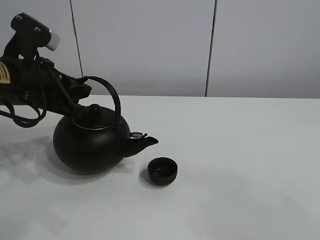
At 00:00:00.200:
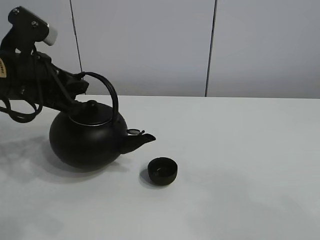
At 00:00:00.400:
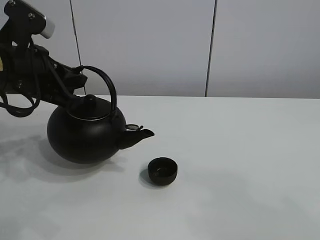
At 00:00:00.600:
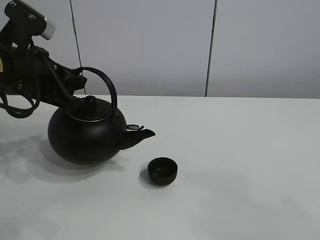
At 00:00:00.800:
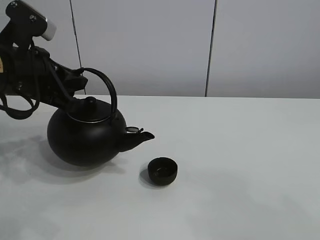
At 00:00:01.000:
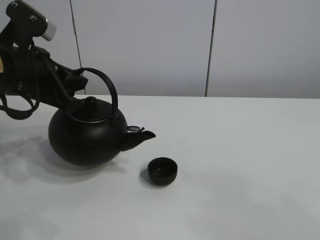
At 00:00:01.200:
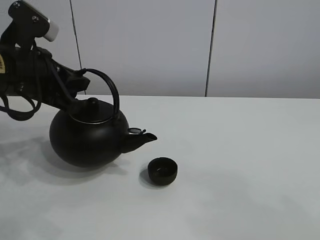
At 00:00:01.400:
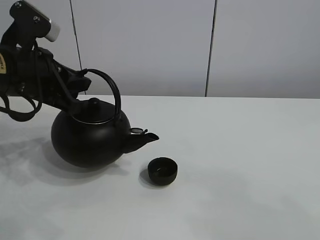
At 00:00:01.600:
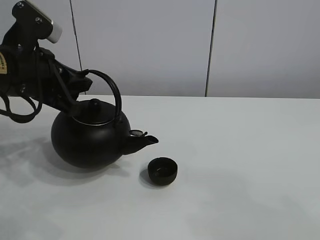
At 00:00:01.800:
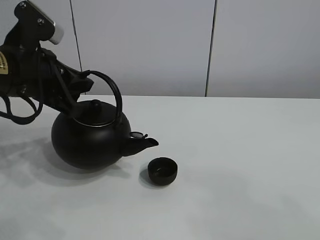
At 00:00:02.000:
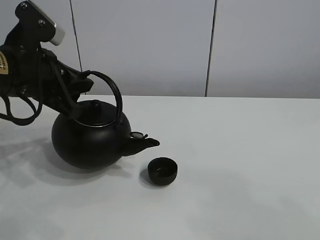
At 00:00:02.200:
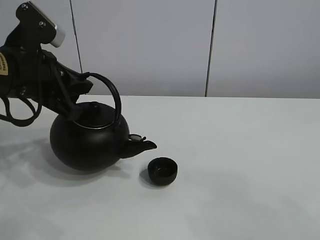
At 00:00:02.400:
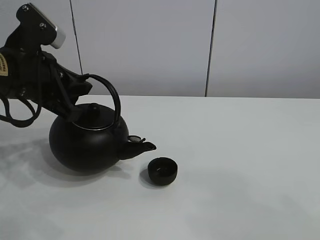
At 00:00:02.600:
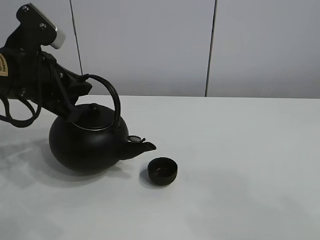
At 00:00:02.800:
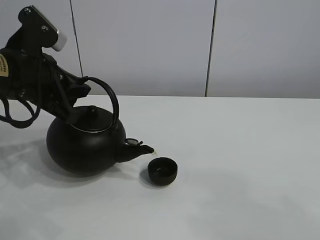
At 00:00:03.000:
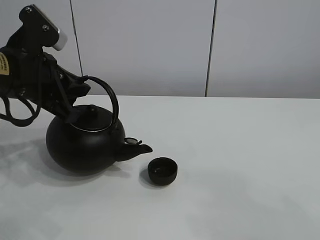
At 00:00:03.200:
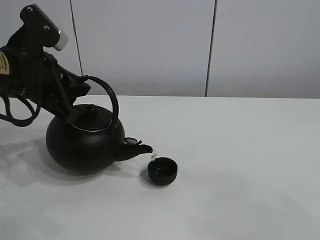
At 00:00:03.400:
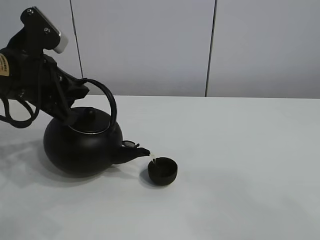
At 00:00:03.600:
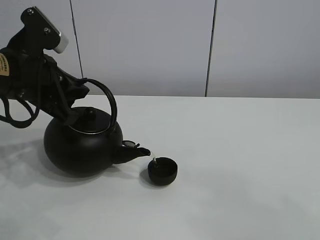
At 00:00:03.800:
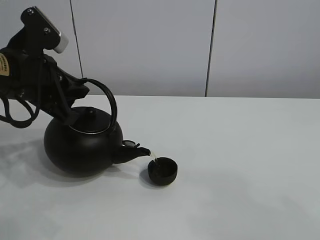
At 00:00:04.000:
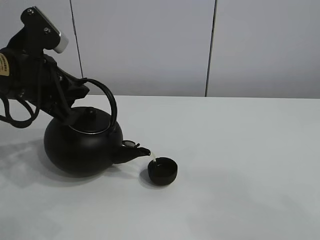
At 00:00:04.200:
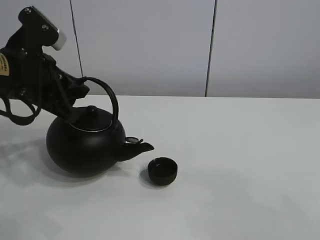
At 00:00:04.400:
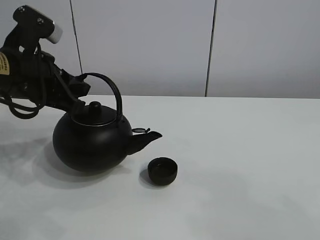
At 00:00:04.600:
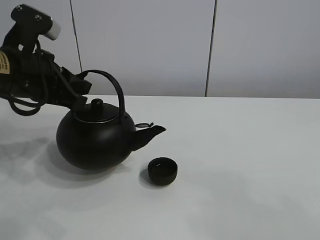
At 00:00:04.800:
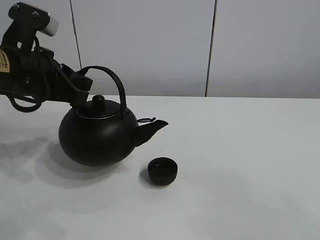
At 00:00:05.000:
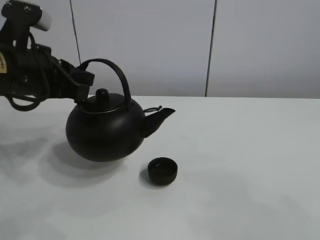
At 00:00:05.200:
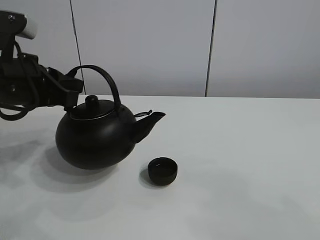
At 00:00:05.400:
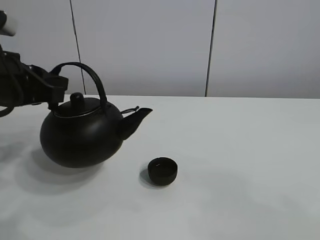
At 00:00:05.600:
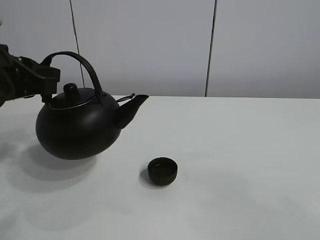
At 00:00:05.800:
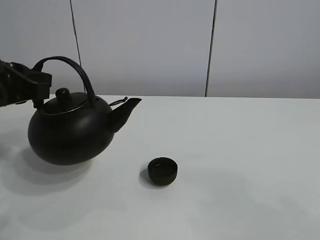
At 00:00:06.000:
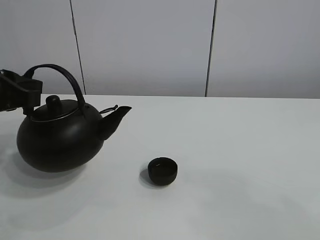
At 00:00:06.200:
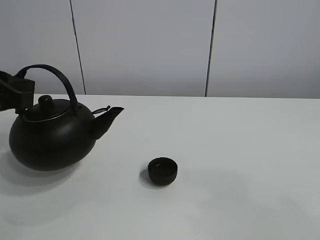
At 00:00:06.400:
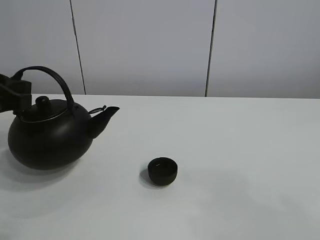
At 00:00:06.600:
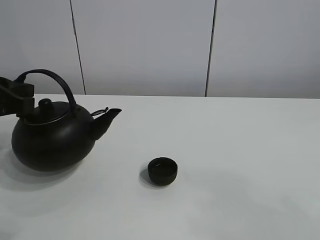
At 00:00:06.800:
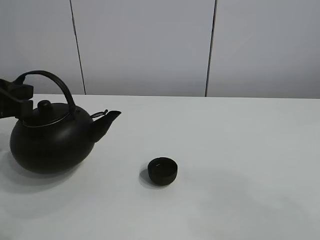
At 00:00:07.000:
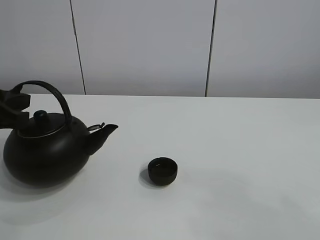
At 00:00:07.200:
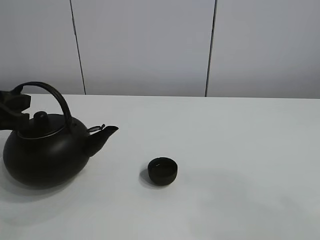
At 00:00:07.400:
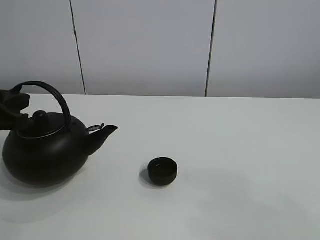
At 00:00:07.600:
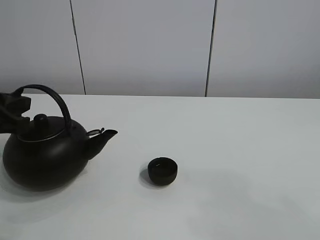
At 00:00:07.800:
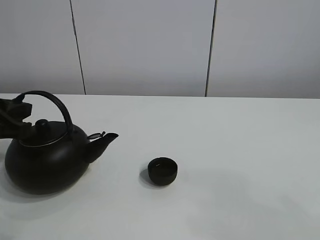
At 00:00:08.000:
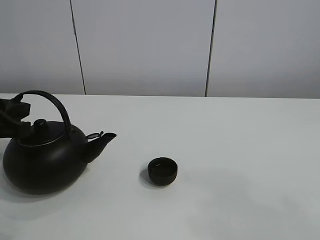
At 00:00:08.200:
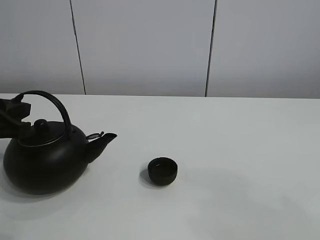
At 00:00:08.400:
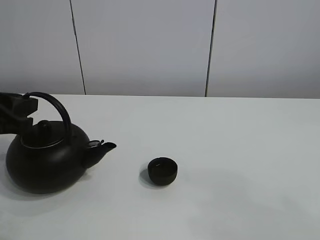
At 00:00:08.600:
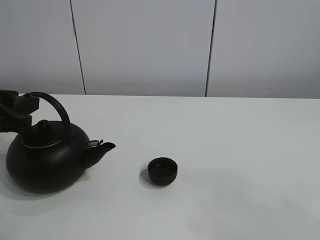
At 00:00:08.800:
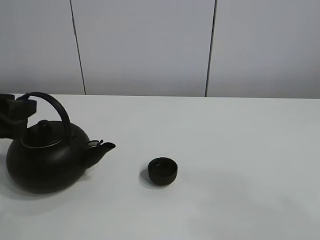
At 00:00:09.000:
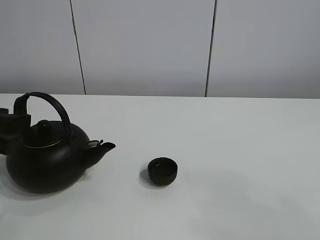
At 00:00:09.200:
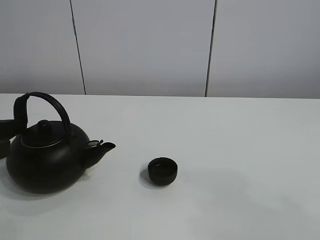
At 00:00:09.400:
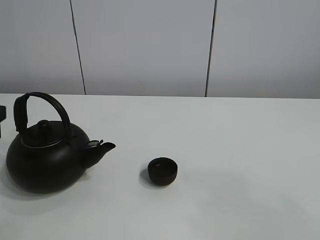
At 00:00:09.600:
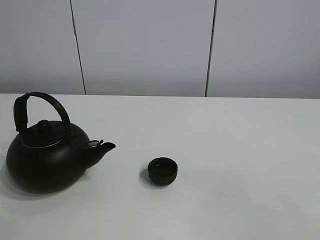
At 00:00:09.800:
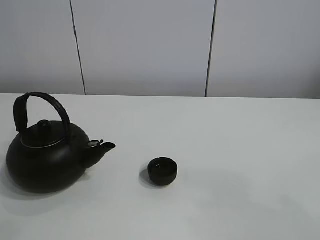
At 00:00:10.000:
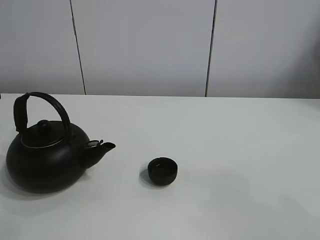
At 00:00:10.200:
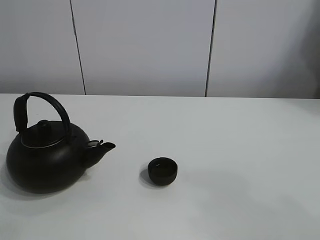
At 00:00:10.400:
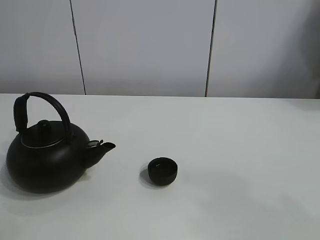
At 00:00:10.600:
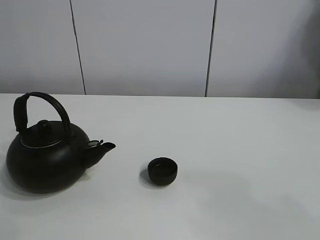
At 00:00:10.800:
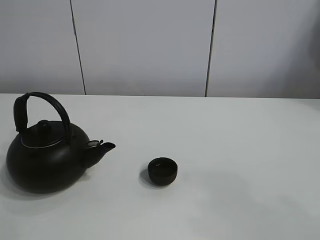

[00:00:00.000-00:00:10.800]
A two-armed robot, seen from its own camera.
Task of the whole recording: pour tea into the teacup.
Step, 00:00:00.000 to 00:00:04.200: Pour tea into the teacup with the left gripper.
00:00:00.000 to 00:00:04.600: The grippers stay close to where they were, moving slightly.
00:00:04.600 to 00:00:06.200: The left gripper goes roughly 5 cm to the left.
00:00:06.200 to 00:00:07.800: The grippers move only a little.
00:00:07.800 to 00:00:09.200: The left gripper opens up.
00:00:09.200 to 00:00:10.800: The left gripper goes about 20 cm upward and to the left.

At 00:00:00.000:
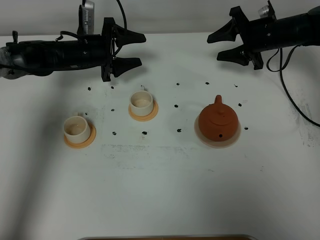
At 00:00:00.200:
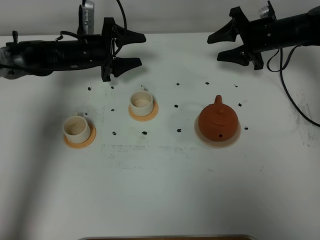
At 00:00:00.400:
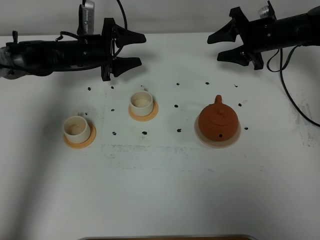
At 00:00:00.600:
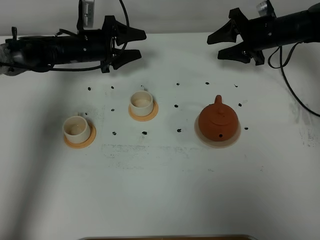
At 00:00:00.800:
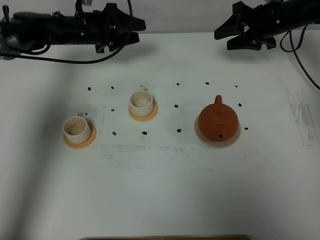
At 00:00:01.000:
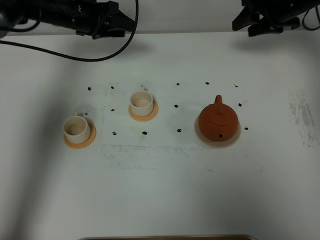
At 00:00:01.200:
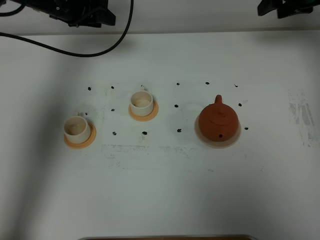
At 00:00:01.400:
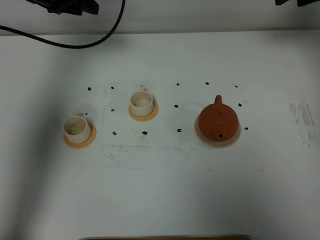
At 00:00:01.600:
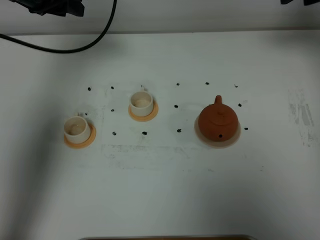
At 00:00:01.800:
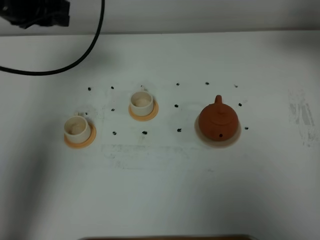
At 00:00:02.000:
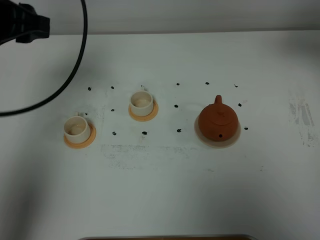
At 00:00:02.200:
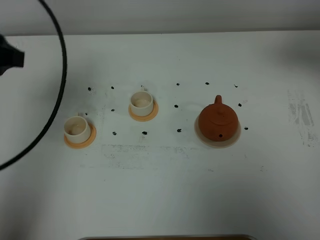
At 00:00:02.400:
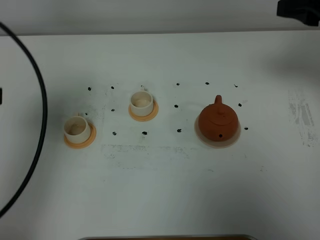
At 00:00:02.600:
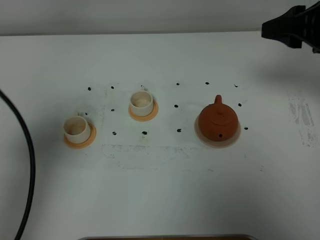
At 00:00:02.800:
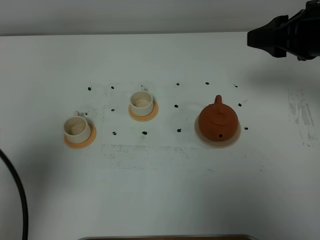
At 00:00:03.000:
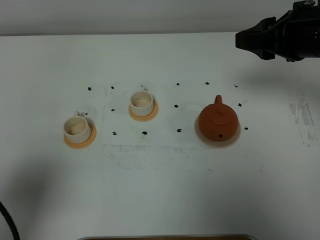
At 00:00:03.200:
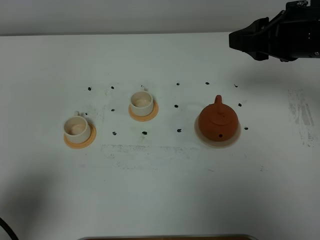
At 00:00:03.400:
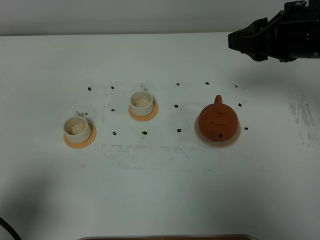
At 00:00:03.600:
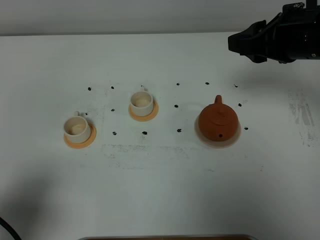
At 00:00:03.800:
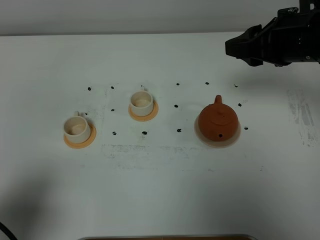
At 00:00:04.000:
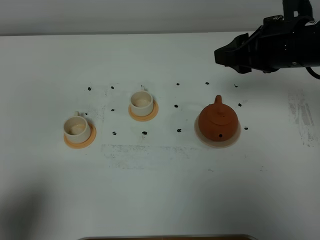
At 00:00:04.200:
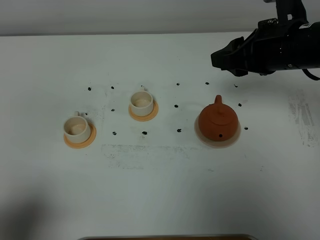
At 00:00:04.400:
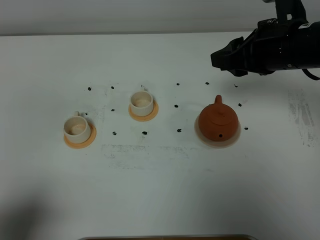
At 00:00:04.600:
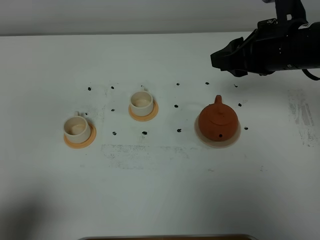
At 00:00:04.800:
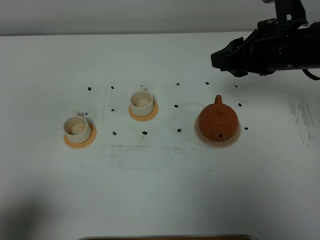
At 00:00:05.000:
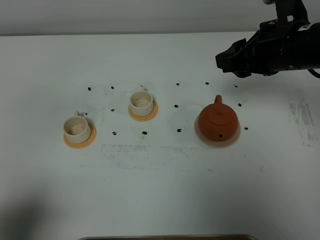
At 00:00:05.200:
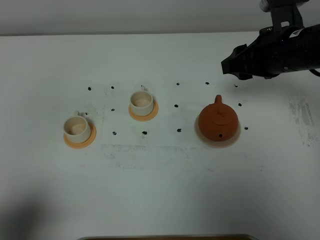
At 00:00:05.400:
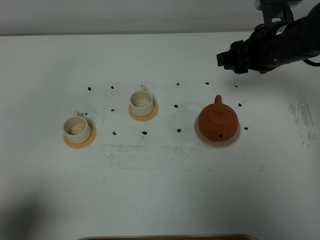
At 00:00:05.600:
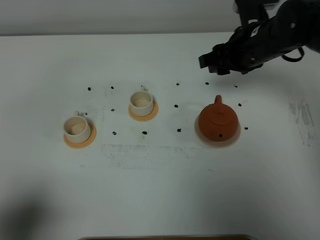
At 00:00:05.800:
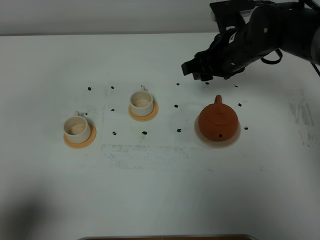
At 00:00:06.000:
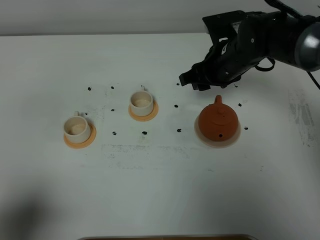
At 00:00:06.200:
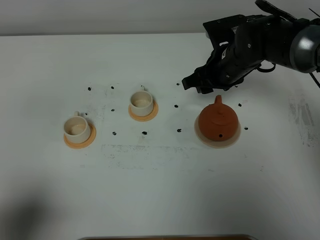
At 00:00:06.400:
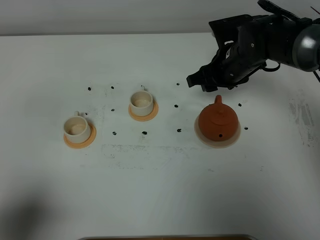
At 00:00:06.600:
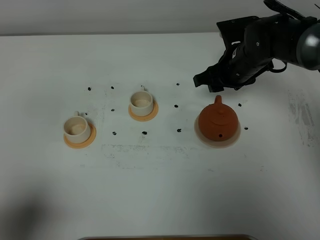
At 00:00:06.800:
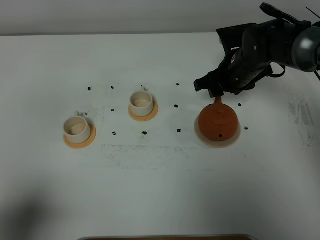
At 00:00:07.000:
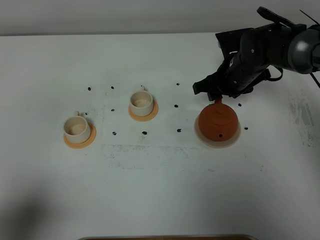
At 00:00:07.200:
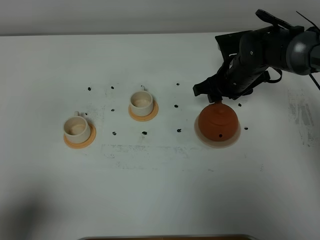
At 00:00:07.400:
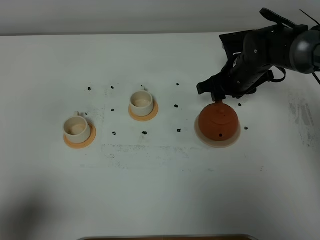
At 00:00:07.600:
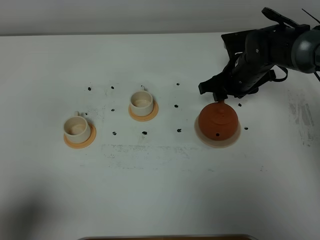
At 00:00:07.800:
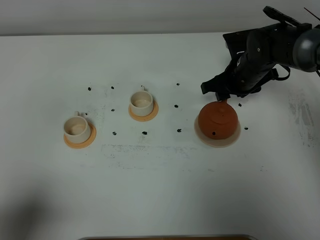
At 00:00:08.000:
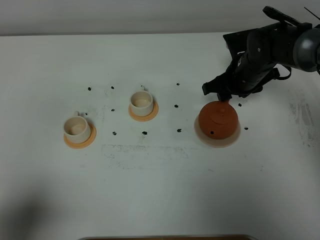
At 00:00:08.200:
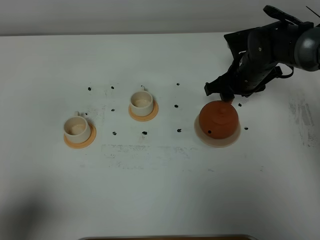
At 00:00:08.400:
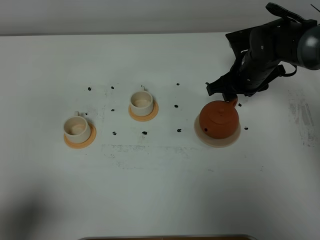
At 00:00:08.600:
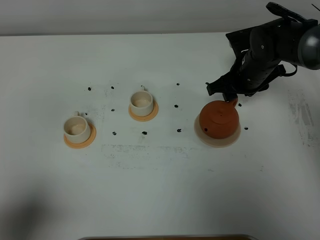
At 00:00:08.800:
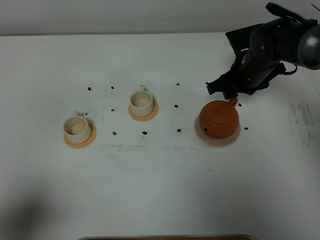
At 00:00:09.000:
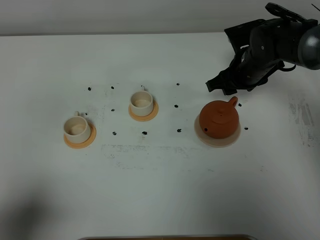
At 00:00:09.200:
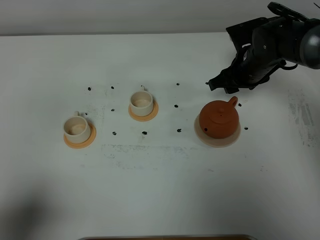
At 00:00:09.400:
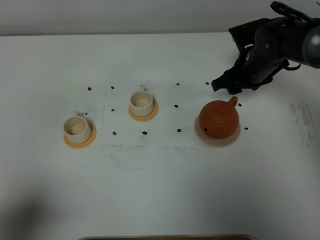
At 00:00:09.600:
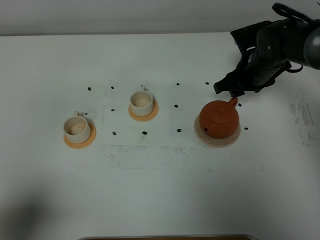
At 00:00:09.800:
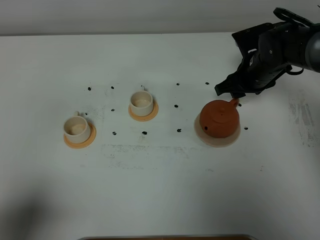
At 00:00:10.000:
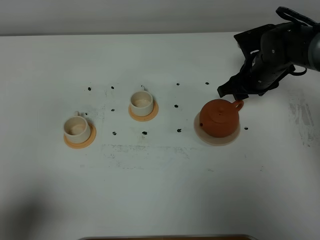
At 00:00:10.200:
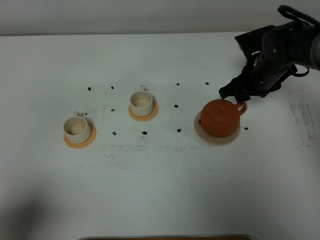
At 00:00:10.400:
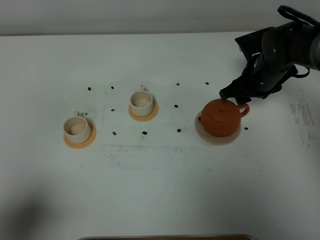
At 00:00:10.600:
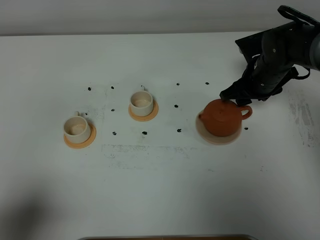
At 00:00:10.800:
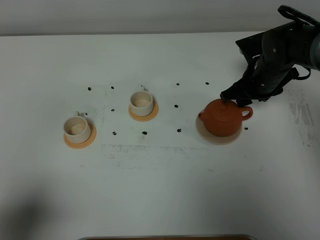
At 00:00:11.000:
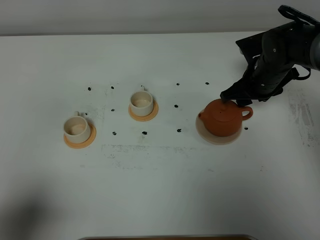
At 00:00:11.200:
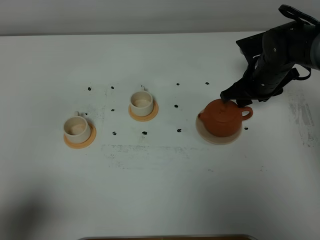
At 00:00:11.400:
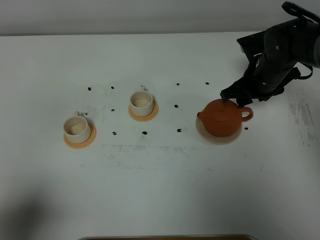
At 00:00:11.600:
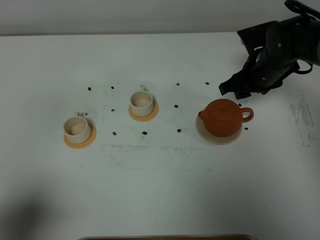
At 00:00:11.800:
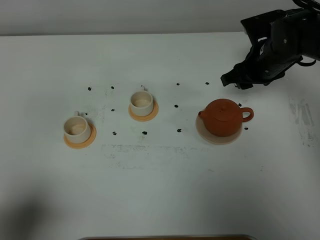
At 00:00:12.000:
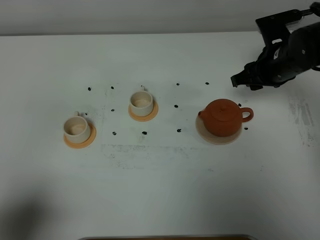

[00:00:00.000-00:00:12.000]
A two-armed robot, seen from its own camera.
Task of the whole recording: grasp the brown teapot and pour the tea into the two white teacups one by one, put the brown teapot back in its original place.
00:00:00.000 to 00:00:01.600: The two grippers go roughly 20 cm upward.
00:00:01.600 to 00:00:03.000: The left gripper shifts about 40 cm backward, while the right gripper goes approximately 15 cm backward and to the left.
00:00:03.000 to 00:00:04.400: The left gripper is displaced backward by some 5 cm.
00:00:04.400 to 00:00:06.000: The right gripper goes about 15 cm downward, forward and to the left.
00:00:06.000 to 00:00:07.600: The right gripper ends up approximately 5 cm from where it was.
00:00:07.600 to 00:00:10.400: The grippers move only a little.
00:00:10.400 to 00:00:12.000: There are only small adjustments of the grippers.
